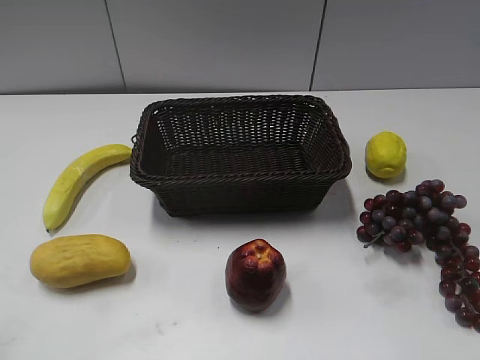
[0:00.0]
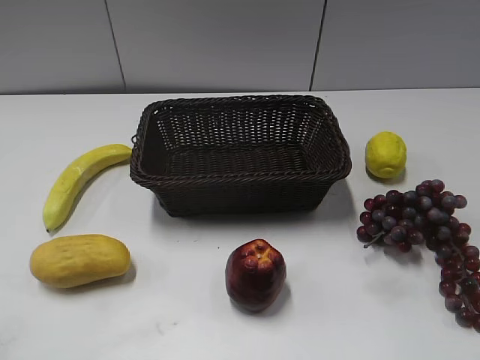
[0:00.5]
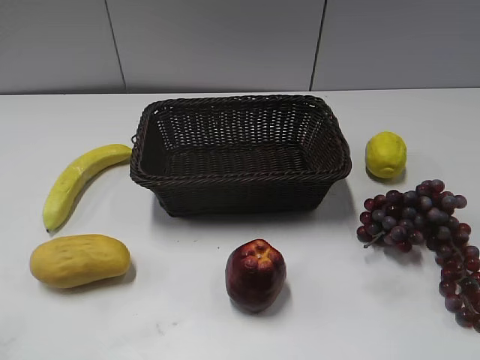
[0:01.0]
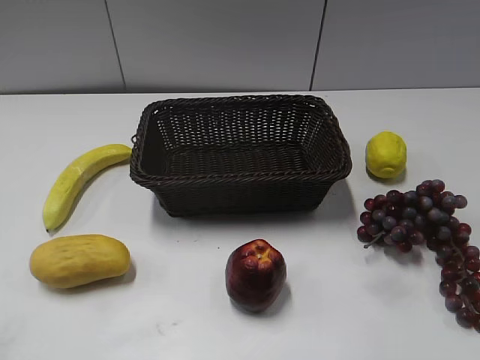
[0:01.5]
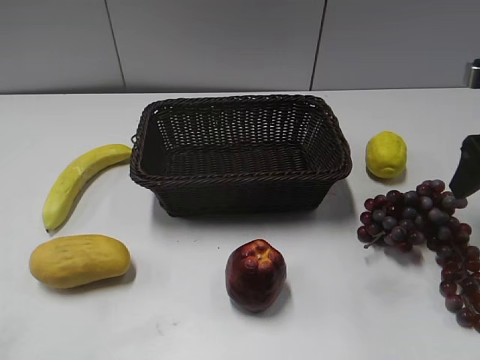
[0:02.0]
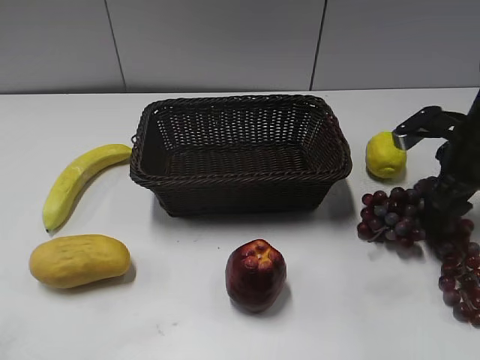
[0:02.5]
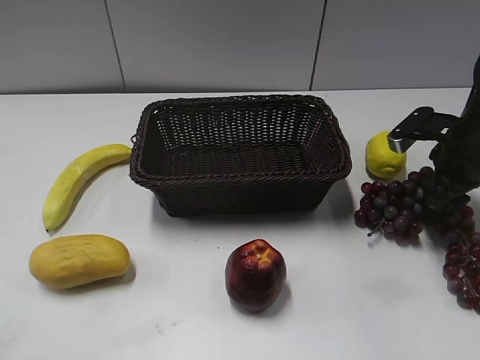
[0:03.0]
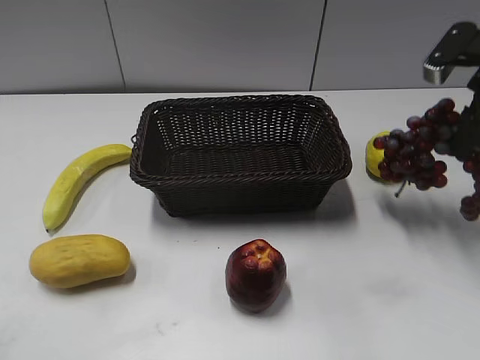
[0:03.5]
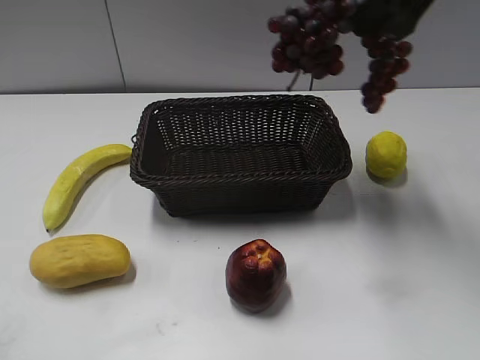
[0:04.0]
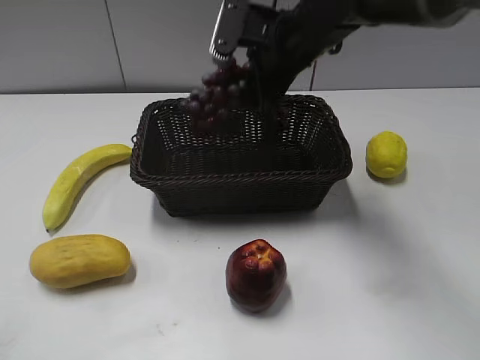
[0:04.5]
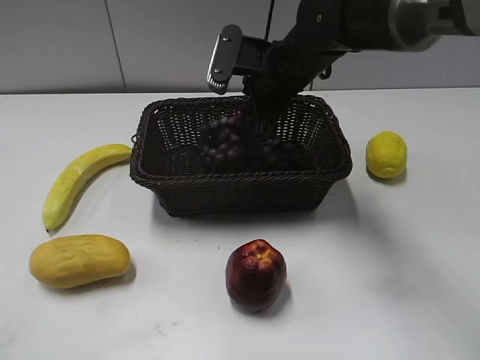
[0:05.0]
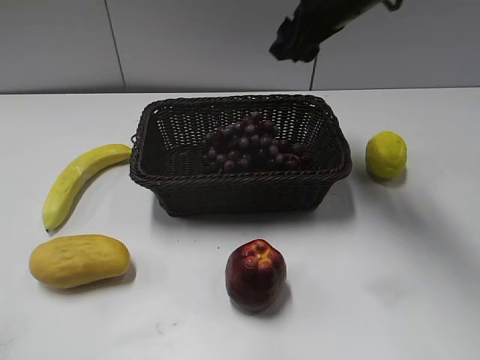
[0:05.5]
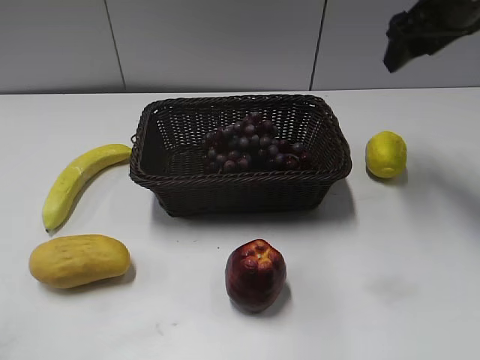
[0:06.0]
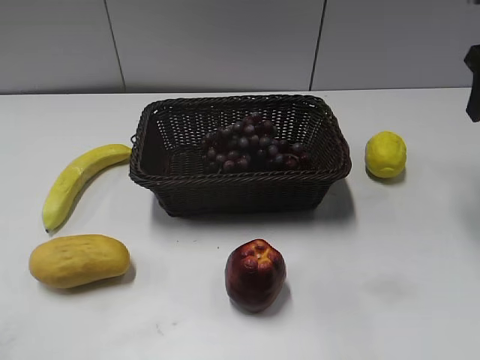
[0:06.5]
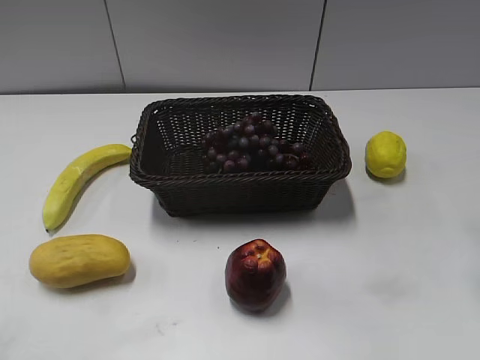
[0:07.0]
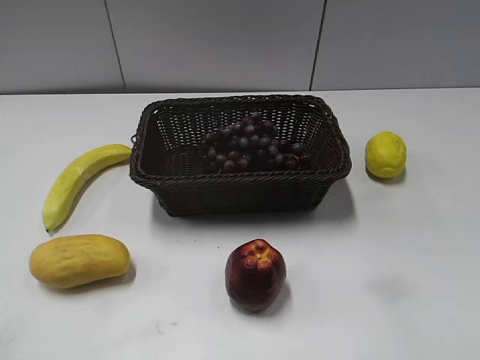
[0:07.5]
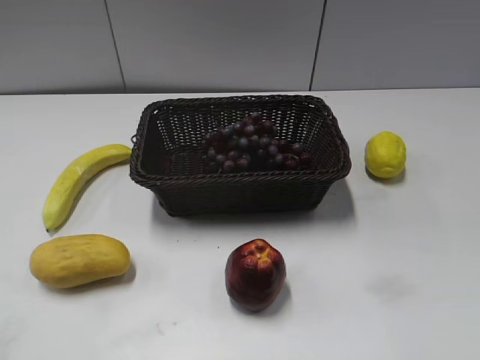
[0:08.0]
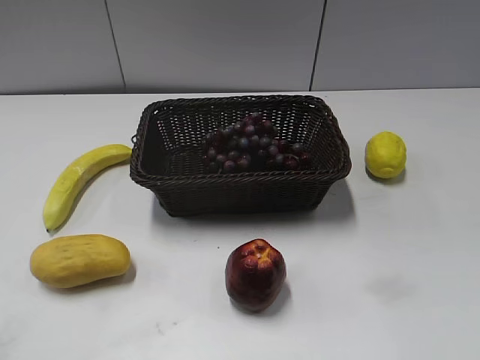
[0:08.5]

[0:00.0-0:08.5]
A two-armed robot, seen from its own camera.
Step, 0:02.0 to 0:02.5: Grasp the grape with right gripper.
Step, 0:03.0 to 0:04.5: Place the grape in the basket with right gripper.
0:02.0 to 0:04.0: The right gripper goes approximately 20 cm to the left, upward and forward, and closes up.
0:04.0 to 0:06.5: The right gripper shifts roughly 15 cm to the right and downward, and opens its fingers.
0:06.5 to 0:08.5: The right gripper heads backward, covering roughly 35 cm.
